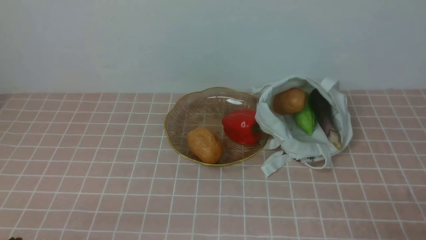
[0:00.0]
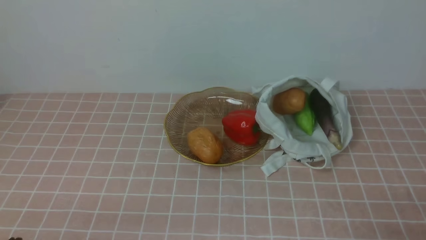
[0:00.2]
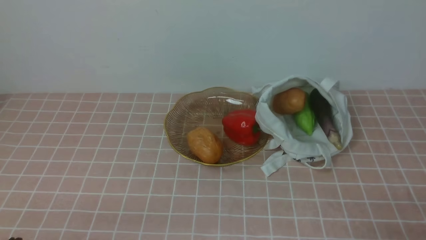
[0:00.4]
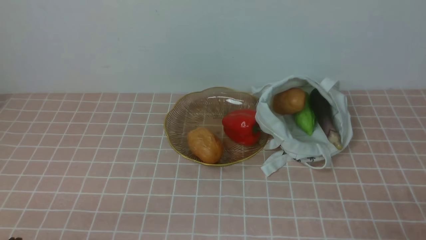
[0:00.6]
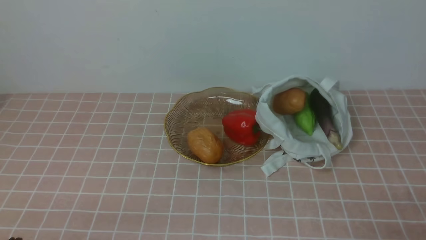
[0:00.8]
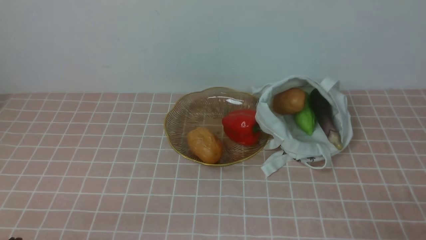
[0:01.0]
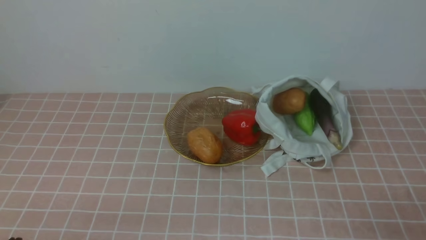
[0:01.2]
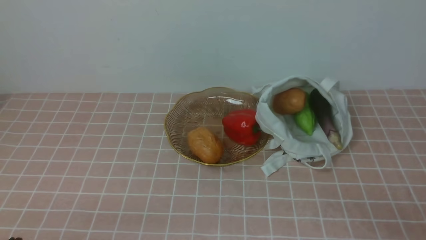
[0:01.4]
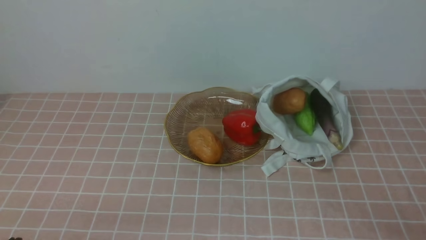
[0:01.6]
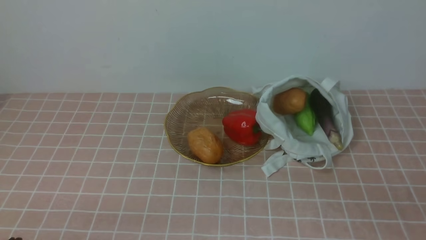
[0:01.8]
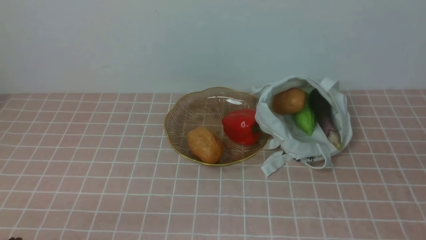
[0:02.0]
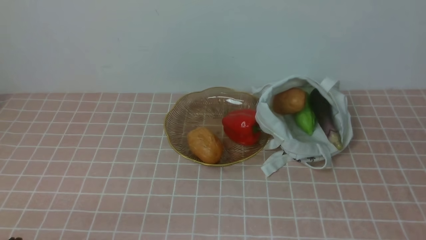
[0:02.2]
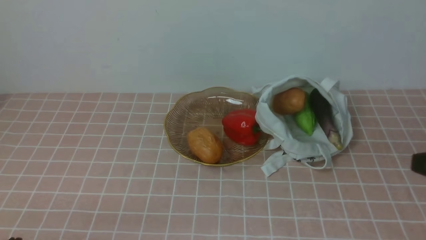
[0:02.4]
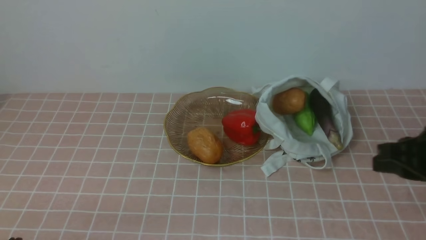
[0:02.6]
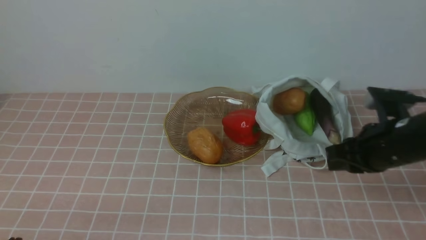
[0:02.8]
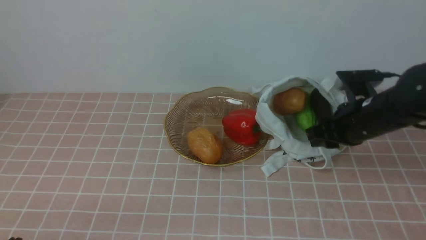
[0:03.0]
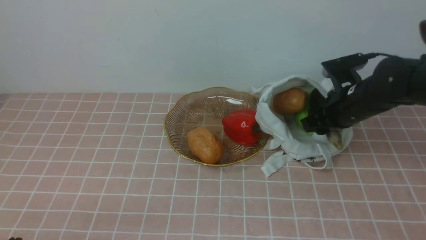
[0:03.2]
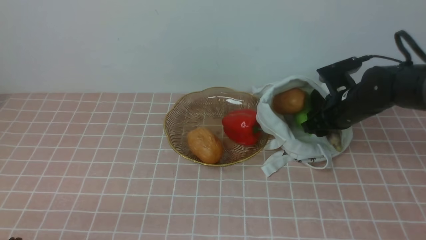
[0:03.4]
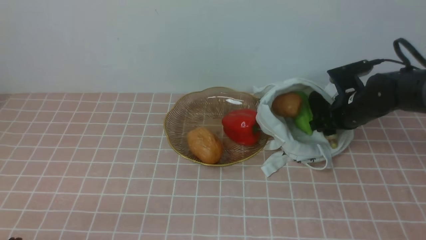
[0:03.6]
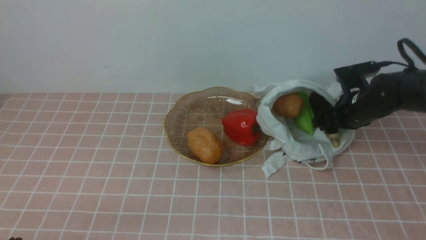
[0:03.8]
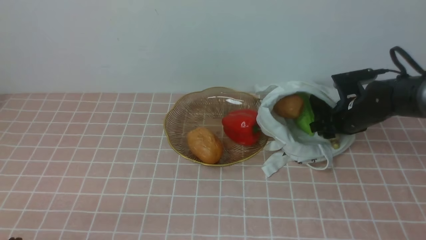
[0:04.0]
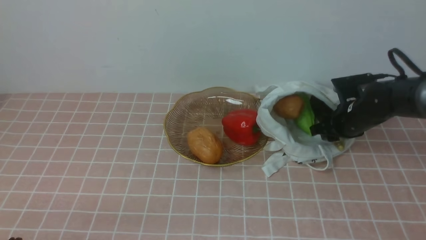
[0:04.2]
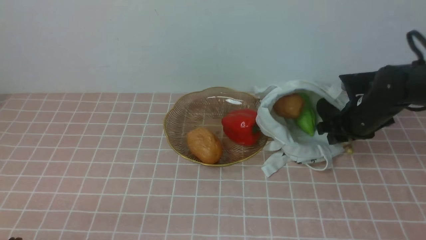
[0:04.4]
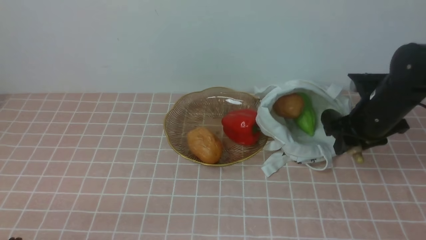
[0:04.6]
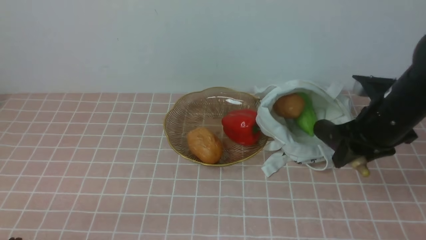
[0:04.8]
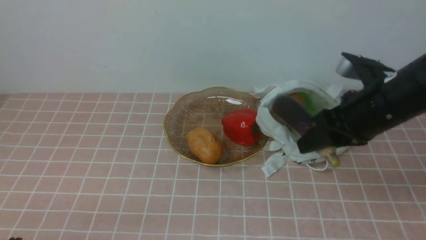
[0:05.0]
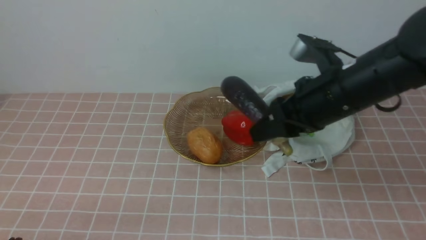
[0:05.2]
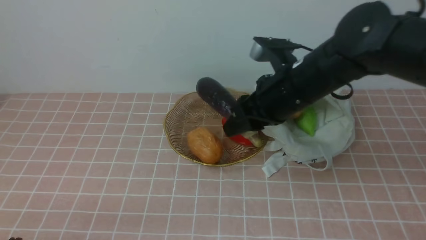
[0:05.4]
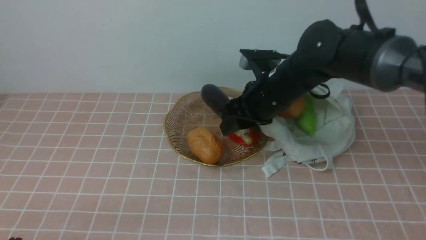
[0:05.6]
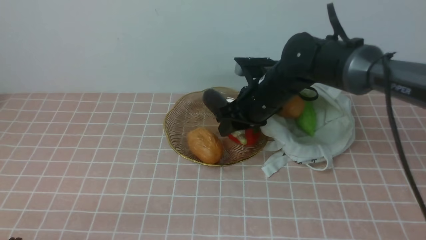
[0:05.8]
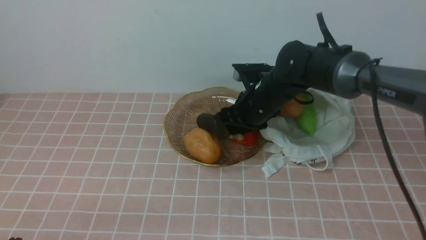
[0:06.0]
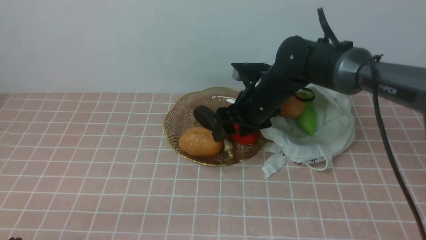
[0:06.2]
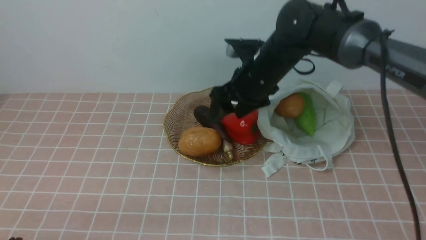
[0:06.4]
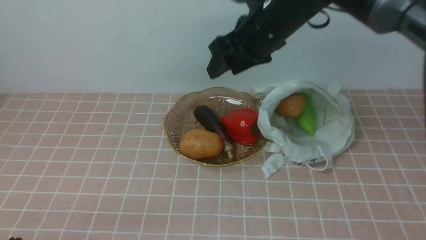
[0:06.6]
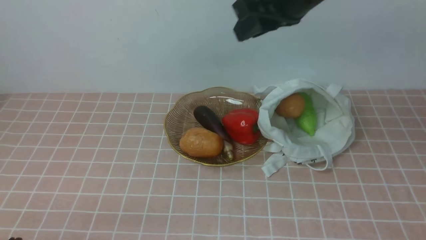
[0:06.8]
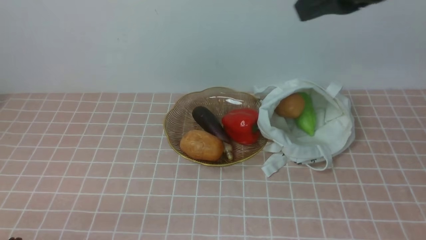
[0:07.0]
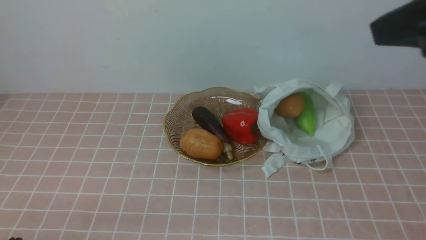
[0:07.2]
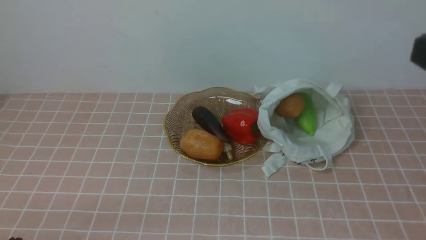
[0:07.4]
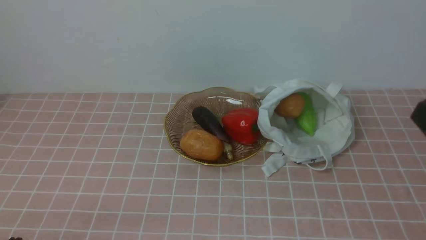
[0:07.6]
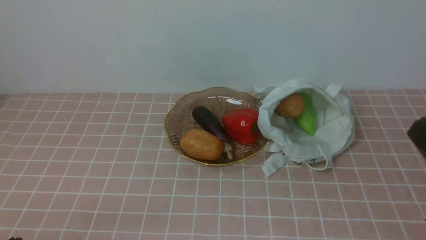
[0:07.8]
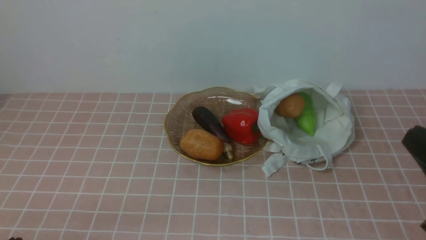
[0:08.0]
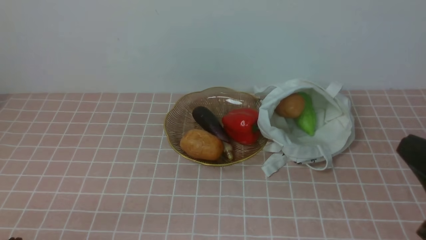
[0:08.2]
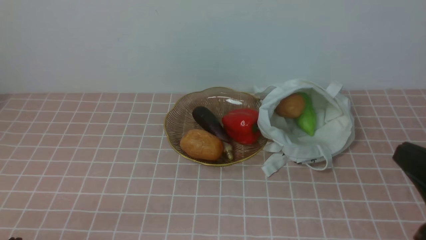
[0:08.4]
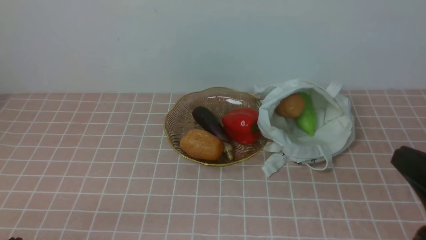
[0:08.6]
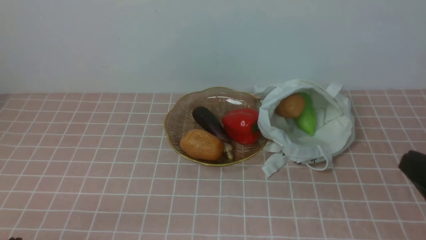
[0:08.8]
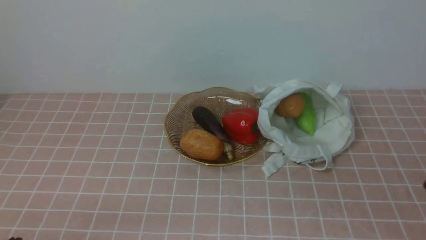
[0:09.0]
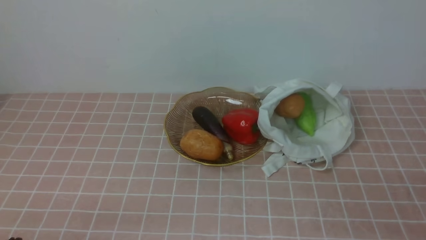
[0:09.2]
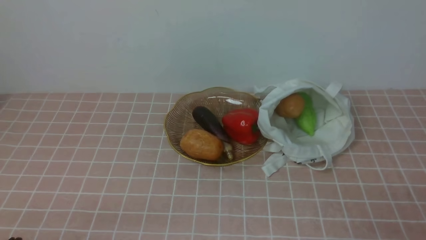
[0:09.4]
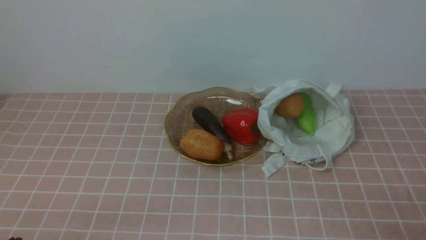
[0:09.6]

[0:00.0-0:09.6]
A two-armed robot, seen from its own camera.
Task of the whole recording: take vegetables from bag on pink coffee tablecloth place on plate.
Step, 0:00.0 to 0:03.8: Grasp the eggplant with right gripper.
Step, 0:04.2 to 0:06.6: Place the eggplant on the plate with right gripper.
0:01.6 to 0:03.2: The right gripper moves forward, about 30 cm, and opens.
0:03.2 to 0:04.8: The right gripper goes about 10 cm backward and upward.
0:04.8 to 0:06.4: The right gripper moves to the left and forward, some 15 cm, and opens.
0:06.4 to 0:08.0: The right gripper is displaced backward and to the right by roughly 35 cm, and closes its fingers.
0:08.0 to 0:09.6: The right gripper goes approximately 10 cm downward.

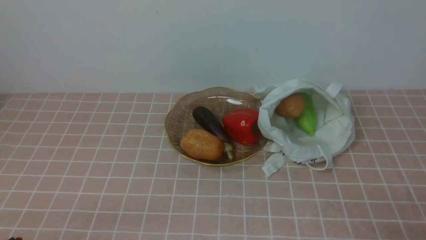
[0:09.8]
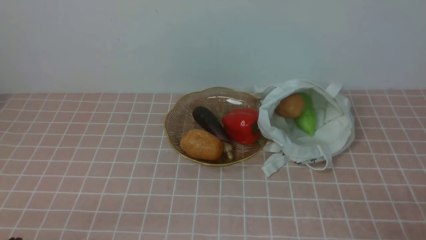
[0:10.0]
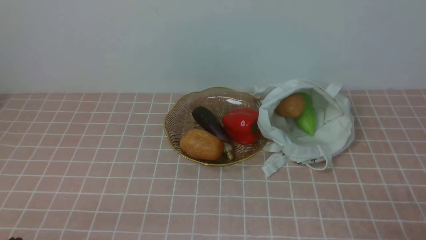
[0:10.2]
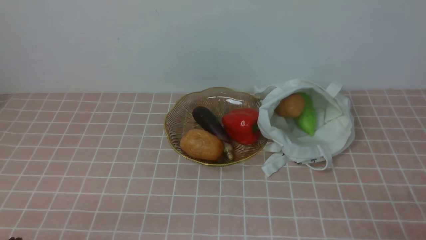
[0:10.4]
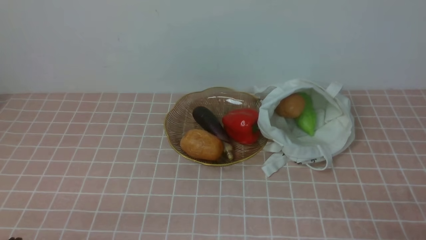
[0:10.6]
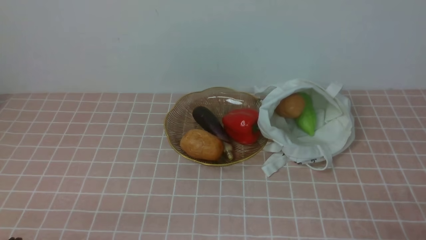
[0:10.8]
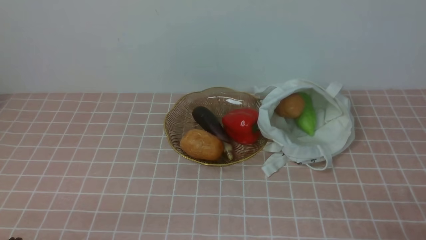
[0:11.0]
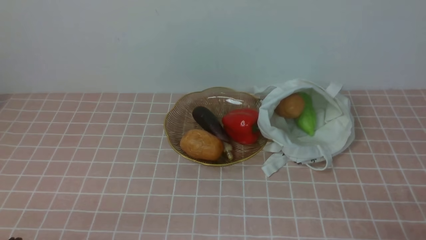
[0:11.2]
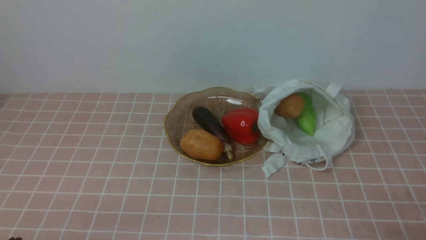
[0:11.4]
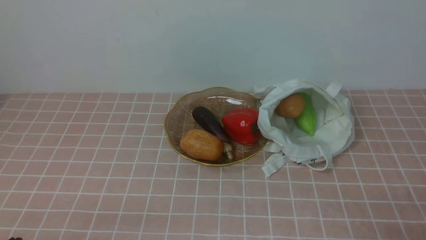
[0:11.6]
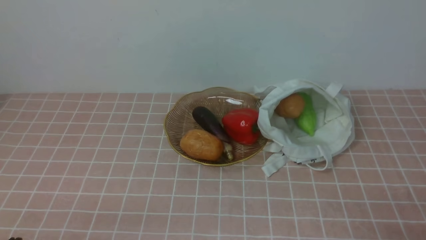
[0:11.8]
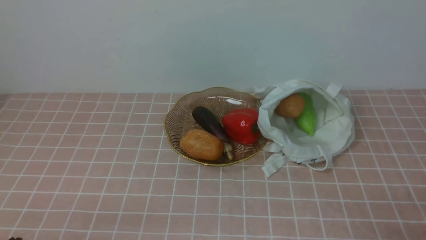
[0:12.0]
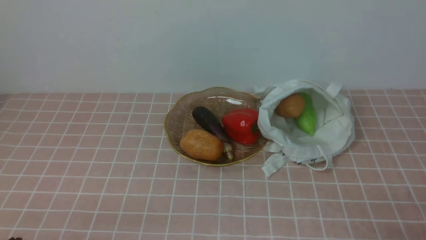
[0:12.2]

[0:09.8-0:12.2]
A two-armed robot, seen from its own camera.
Task of the whole recording: take vegetables from bag on pink coffee tablecloth place on plate.
0:09.8 to 0:12.2: The two grippers keep their place.

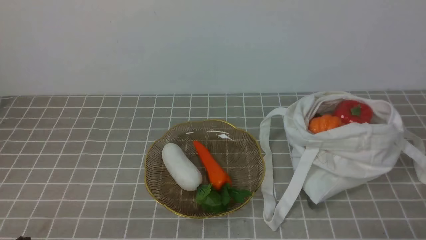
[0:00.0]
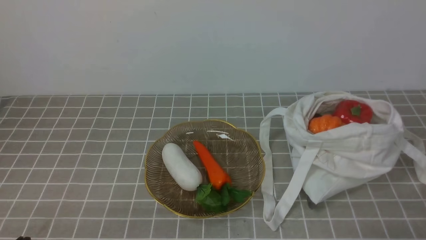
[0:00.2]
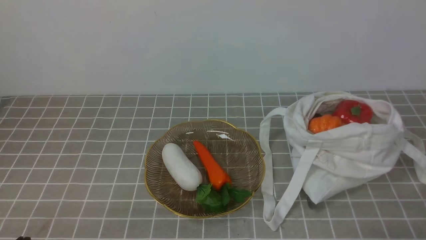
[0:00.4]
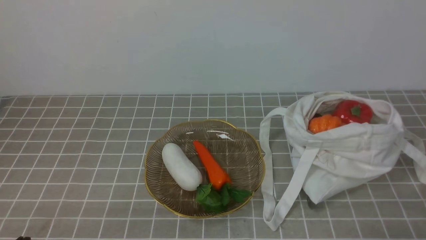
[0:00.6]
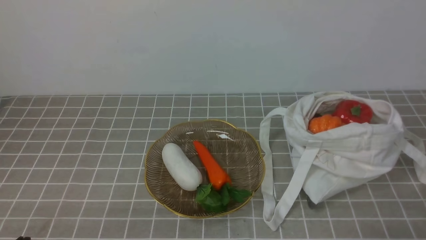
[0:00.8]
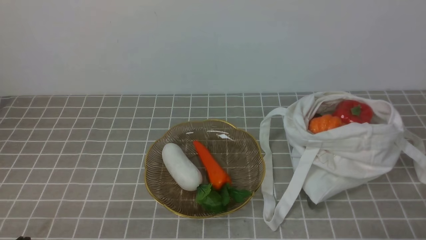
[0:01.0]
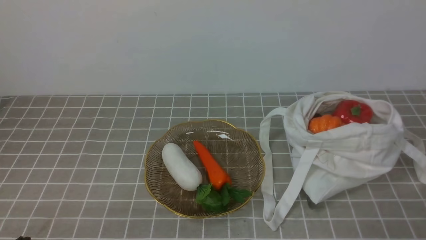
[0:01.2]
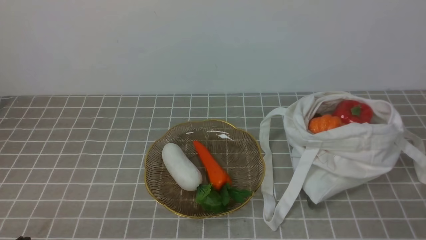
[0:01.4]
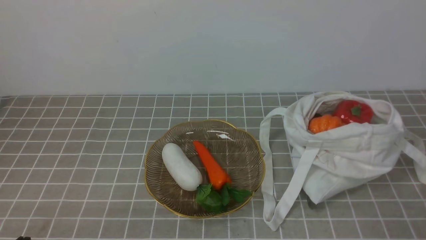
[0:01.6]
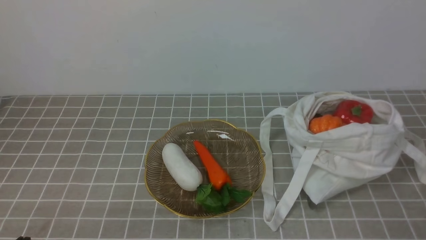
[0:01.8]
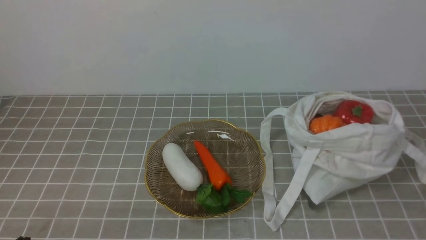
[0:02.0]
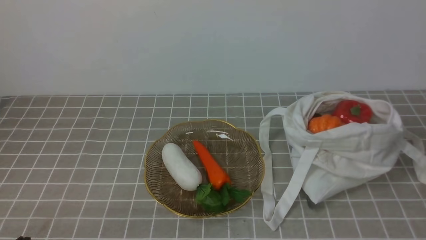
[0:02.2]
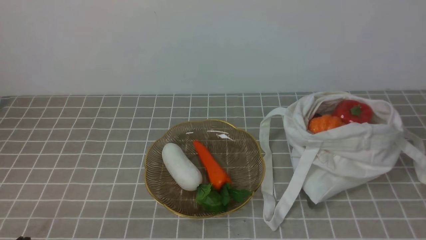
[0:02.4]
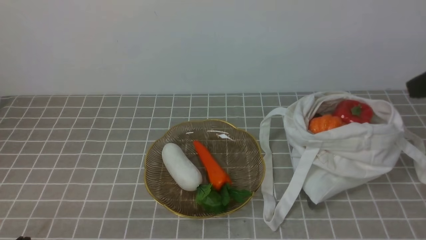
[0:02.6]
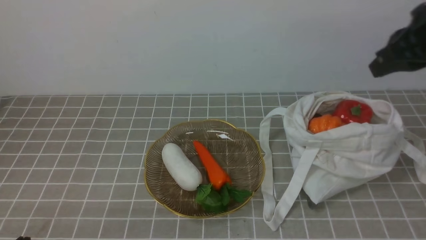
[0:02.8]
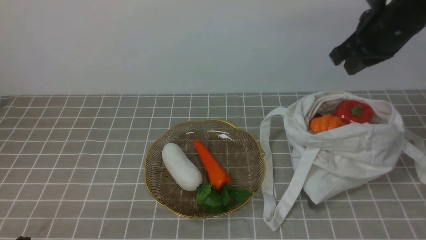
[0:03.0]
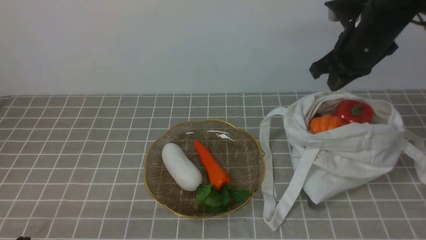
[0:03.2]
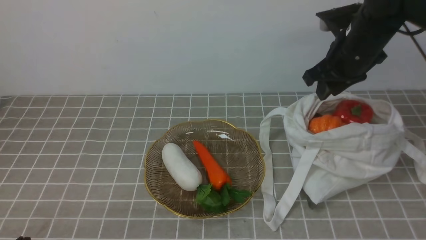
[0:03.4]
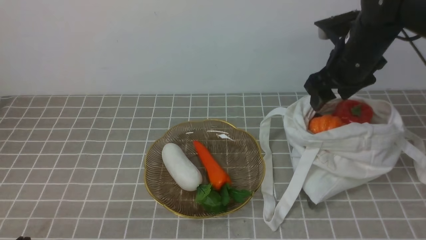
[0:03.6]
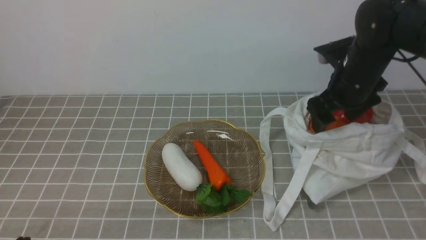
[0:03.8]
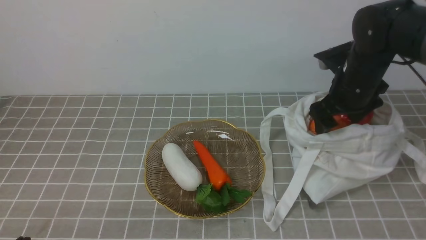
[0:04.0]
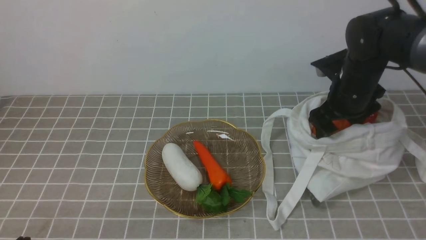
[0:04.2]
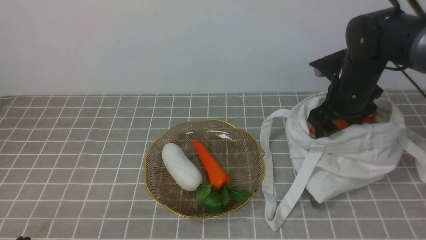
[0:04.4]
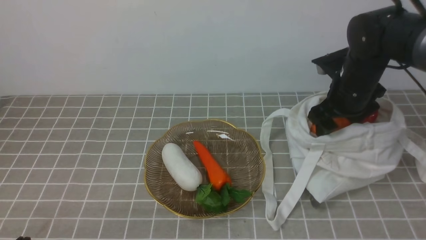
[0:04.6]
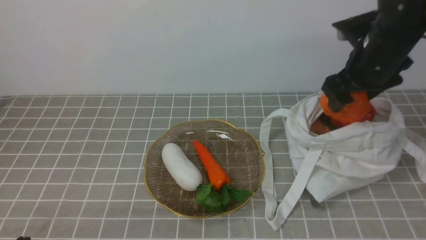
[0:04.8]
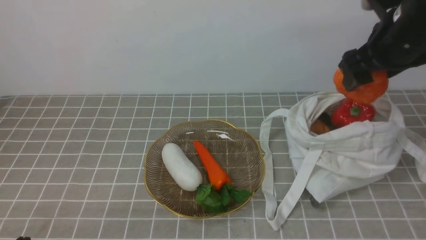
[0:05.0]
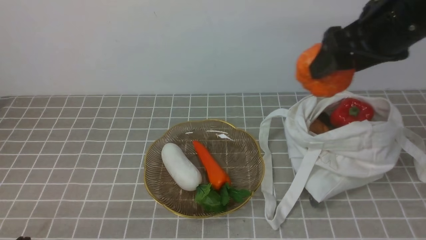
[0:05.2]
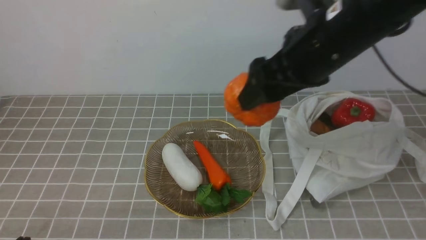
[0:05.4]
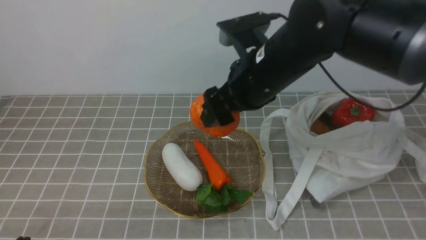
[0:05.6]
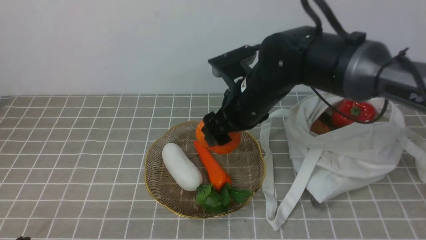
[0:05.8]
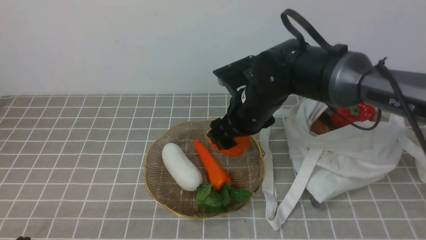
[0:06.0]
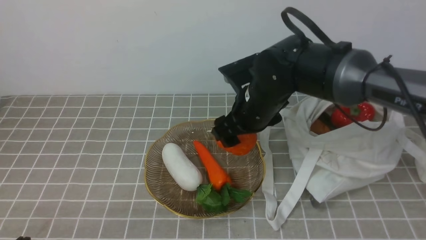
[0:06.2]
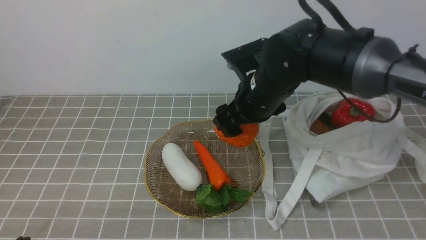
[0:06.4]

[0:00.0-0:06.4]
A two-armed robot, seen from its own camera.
Task of the whole recording: take vegetables from bag on grey coffee tablecloth place on plate.
Step, 0:00.0 to 0:04.4: Grasp the pumpkin with right gripper.
0:01.6 to 0:03.2: The right gripper goes some 35 cm forward.
0:03.2 to 0:04.8: The right gripper reaches about 10 cm downward, then returns, and opens.
0:04.8 to 0:06.4: The right gripper travels to the left by approximately 15 cm.
